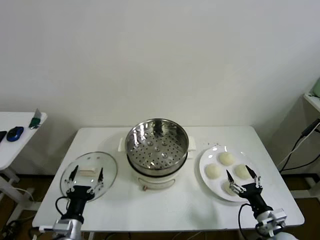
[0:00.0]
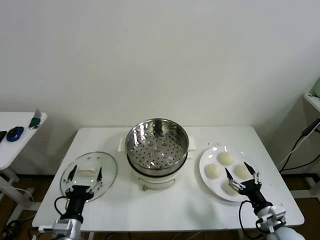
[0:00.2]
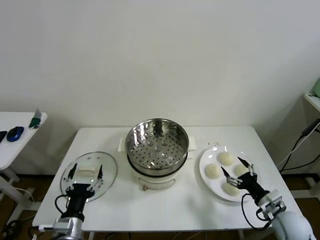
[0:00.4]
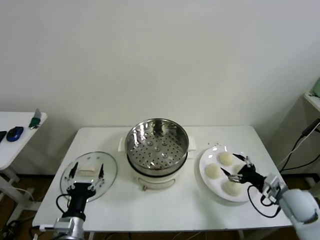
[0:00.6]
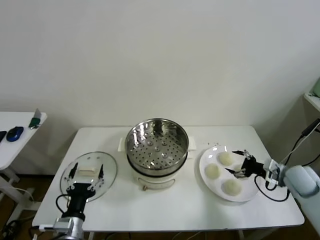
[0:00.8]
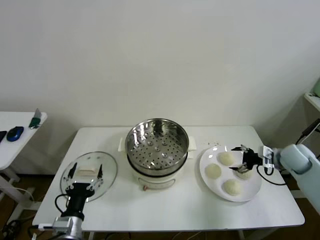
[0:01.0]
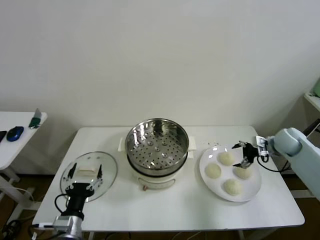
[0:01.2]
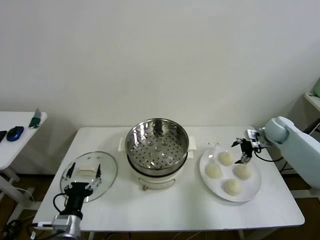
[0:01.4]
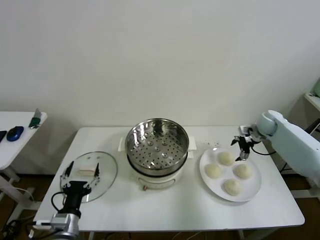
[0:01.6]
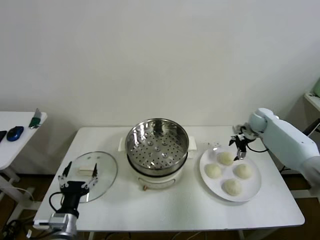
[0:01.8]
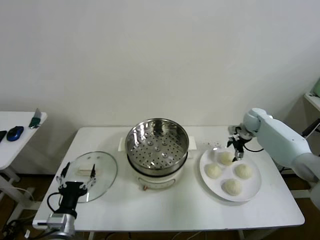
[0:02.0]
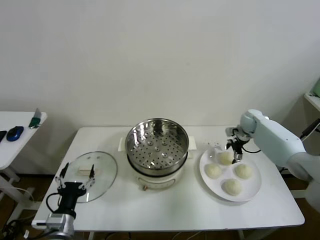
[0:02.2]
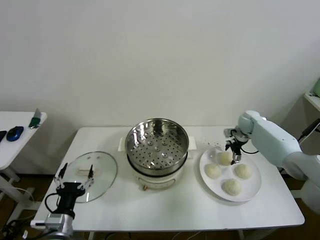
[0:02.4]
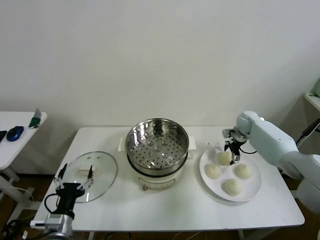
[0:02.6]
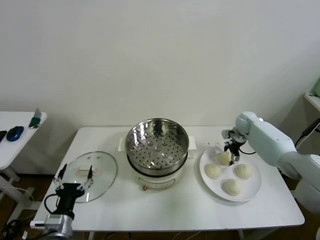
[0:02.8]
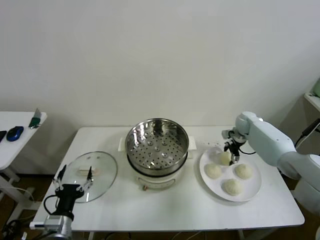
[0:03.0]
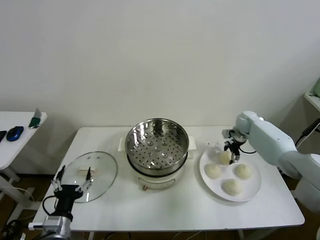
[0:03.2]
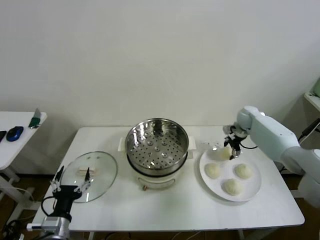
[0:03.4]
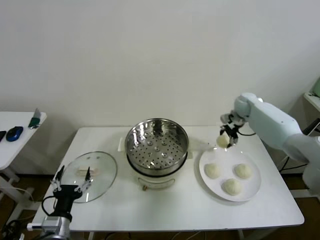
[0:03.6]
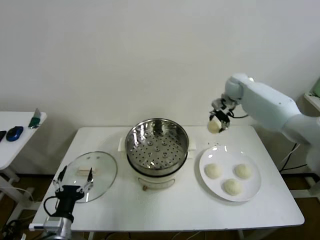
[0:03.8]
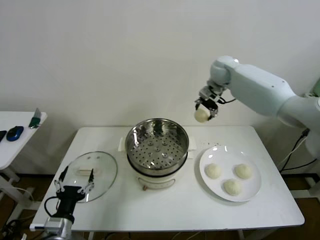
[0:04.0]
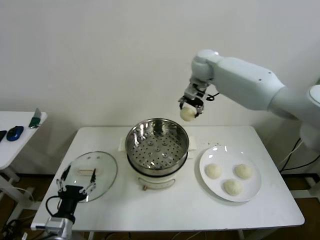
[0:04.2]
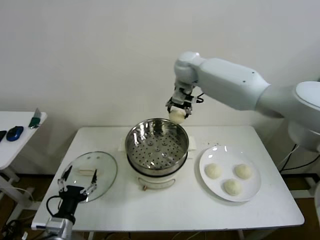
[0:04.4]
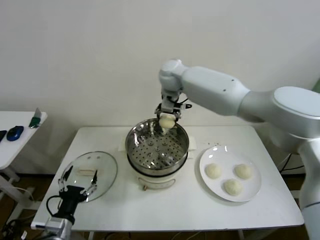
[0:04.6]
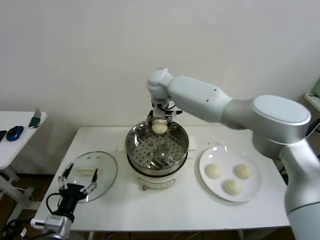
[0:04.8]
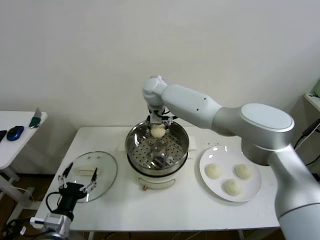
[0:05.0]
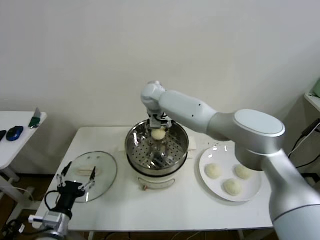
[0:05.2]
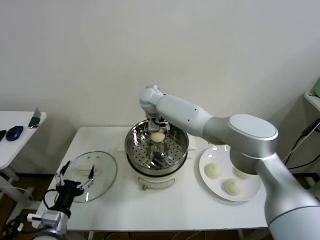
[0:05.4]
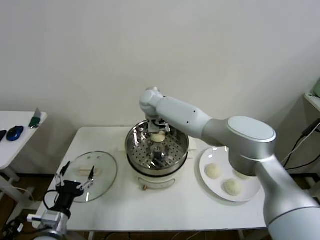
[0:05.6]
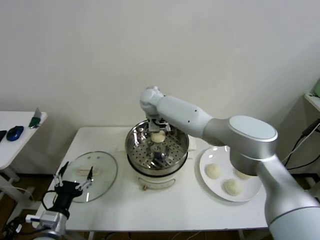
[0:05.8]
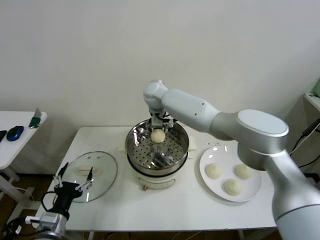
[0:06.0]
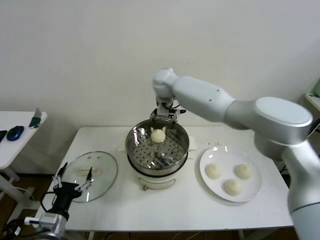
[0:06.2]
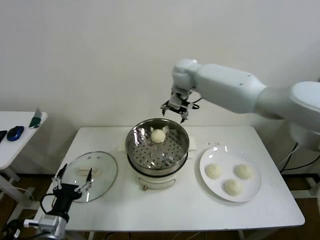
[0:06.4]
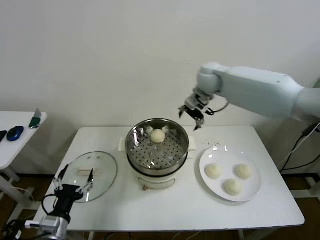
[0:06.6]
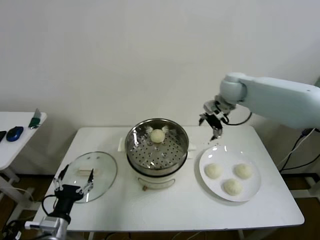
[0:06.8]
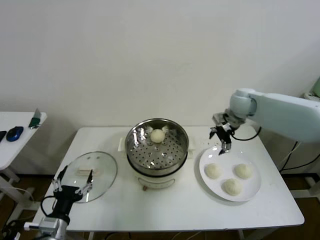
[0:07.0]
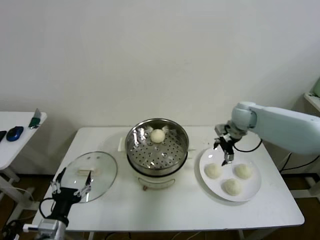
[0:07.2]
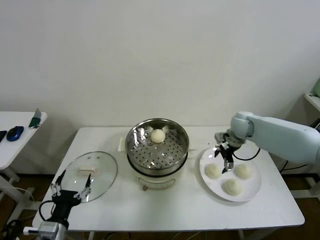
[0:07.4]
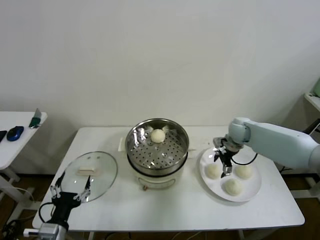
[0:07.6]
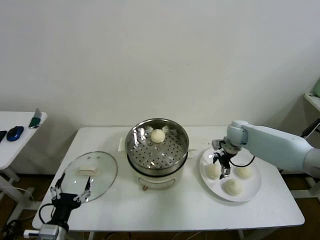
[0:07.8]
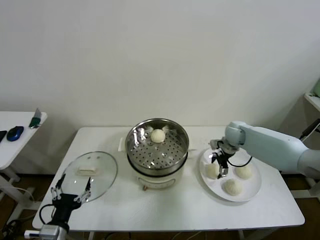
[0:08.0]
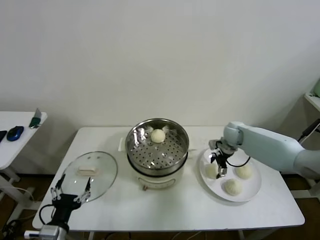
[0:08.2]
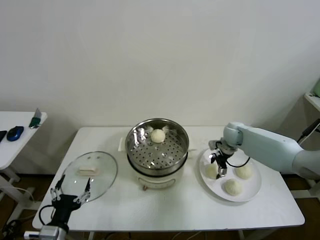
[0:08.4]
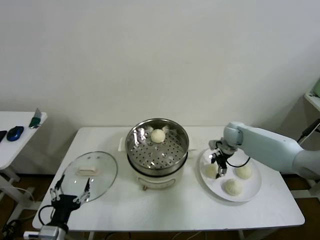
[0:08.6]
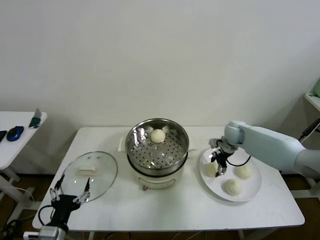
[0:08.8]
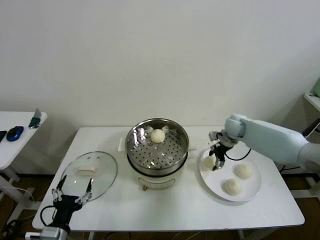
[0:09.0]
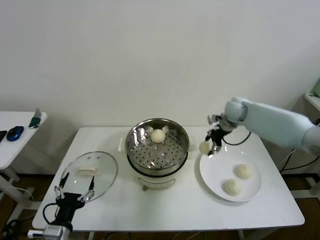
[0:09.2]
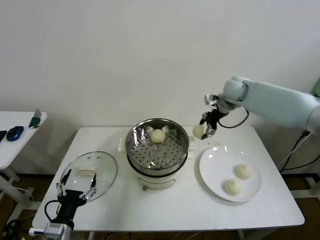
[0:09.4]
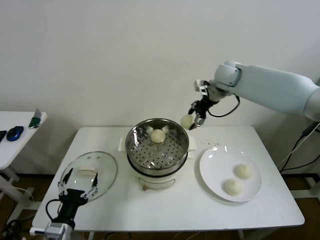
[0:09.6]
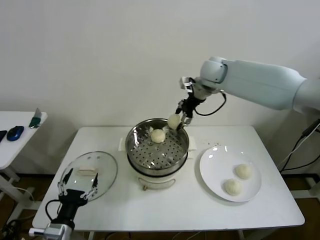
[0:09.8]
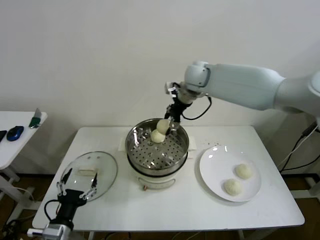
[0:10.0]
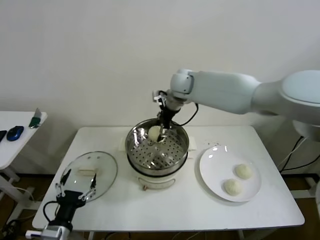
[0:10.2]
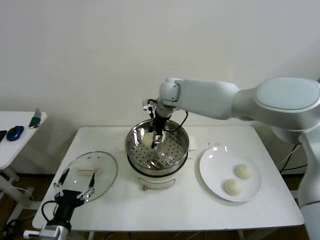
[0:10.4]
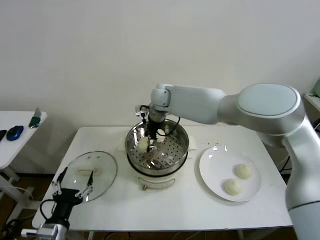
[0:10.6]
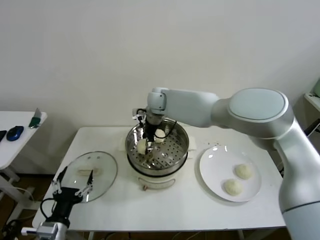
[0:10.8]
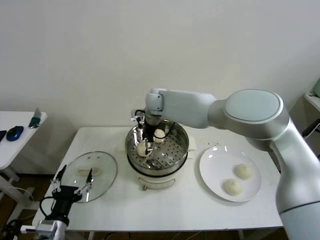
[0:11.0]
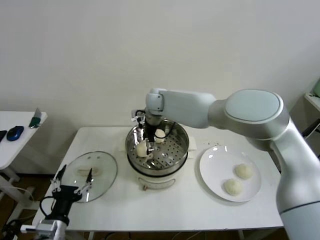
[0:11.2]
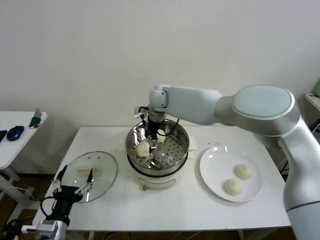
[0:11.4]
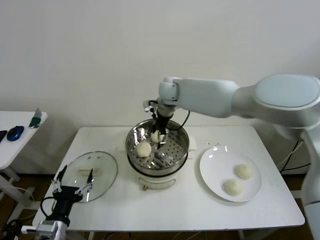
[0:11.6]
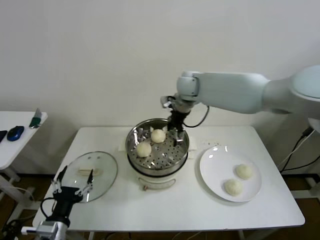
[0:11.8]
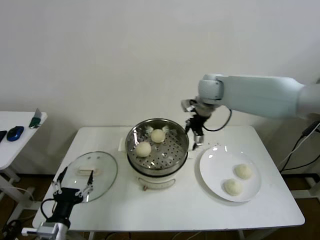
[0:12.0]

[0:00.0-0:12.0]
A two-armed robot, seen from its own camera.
Step, 0:00.0 to 0:03.0: Grasp the baozi in the plate with right gripper.
Step, 0:03.2 to 0:05.6: Place the baozi on the steamer with right gripper.
Step, 0:05.8 to 0:08.6: Grasp the baozi in the plate with right gripper.
Step, 0:08.8 to 0:10.8: Place the baozi on the steamer with right gripper.
0:01.6 to 0:03.0: The right gripper travels to the left by about 5 cm, and closes up.
0:03.0 to 0:04.4: The right gripper heads to the left and upward, covering approximately 40 cm.
0:04.4 to 0:06.0: The right gripper shifts approximately 15 cm to the left and downward, and opens its fingers.
0:06.0 to 0:07.6: The right gripper is displaced to the right and downward by roughly 35 cm.
0:07.6 to 0:09.0: The right gripper closes.
0:09.0 to 0:10.4: The right gripper travels to the left and upward by approximately 30 cm.
0:10.4 to 0:12.0: The right gripper moves to the right, approximately 15 cm, and opens.

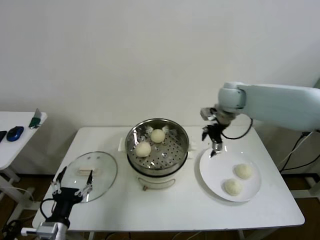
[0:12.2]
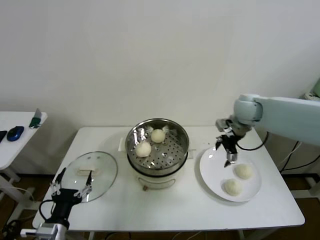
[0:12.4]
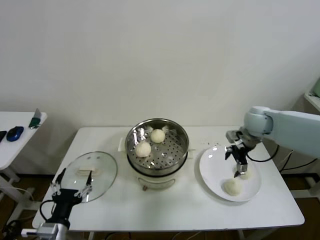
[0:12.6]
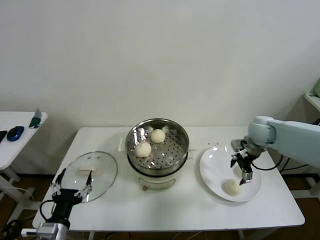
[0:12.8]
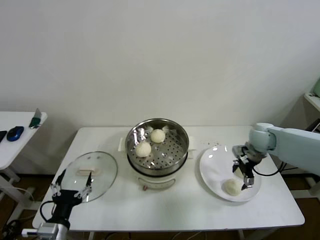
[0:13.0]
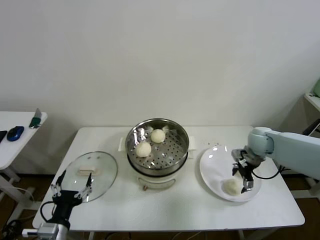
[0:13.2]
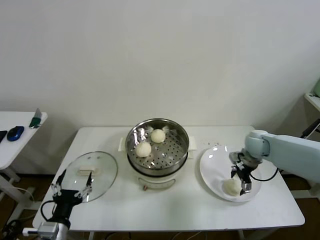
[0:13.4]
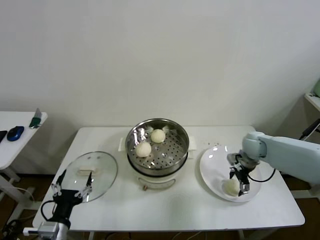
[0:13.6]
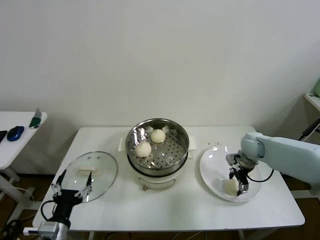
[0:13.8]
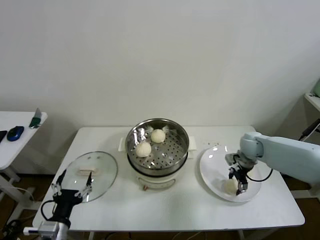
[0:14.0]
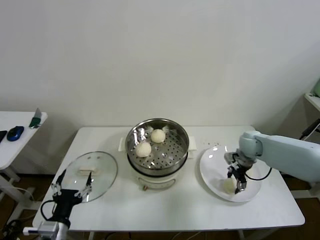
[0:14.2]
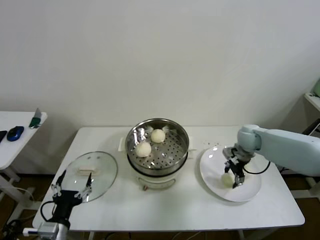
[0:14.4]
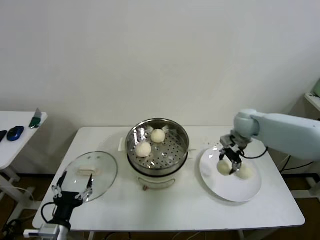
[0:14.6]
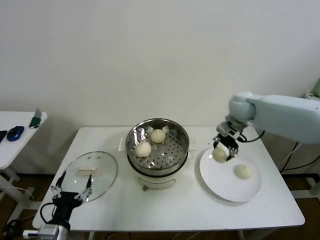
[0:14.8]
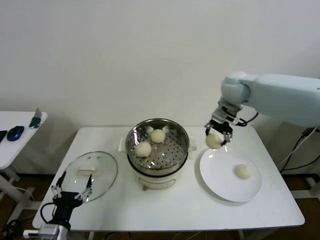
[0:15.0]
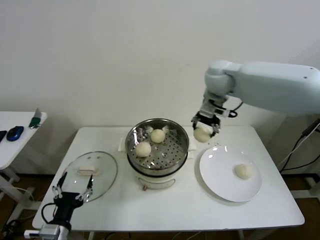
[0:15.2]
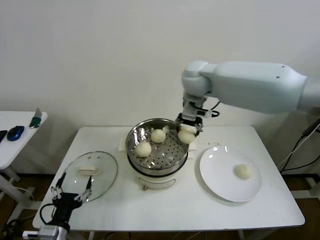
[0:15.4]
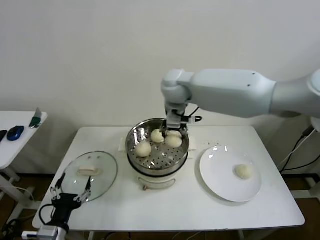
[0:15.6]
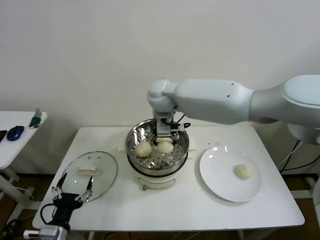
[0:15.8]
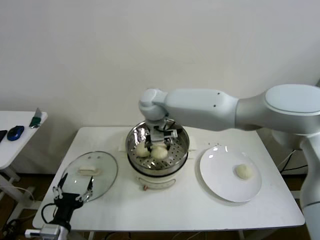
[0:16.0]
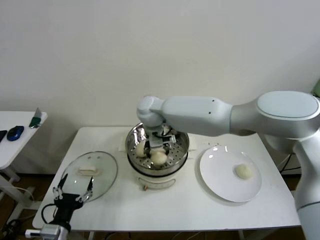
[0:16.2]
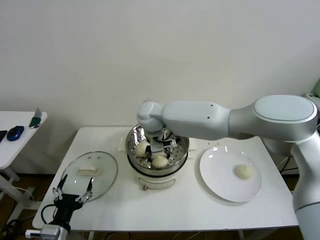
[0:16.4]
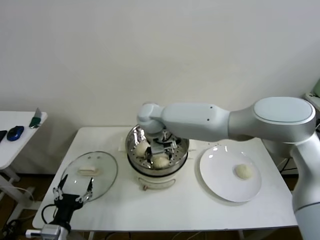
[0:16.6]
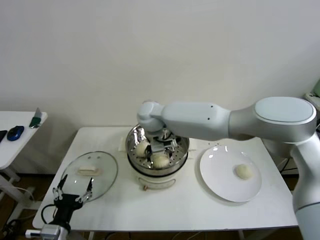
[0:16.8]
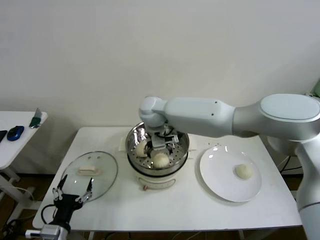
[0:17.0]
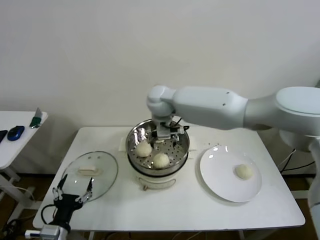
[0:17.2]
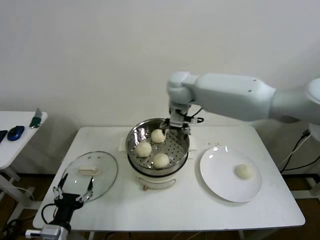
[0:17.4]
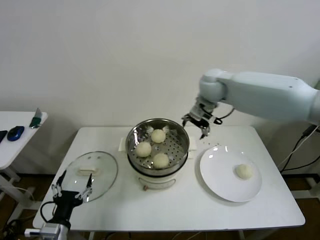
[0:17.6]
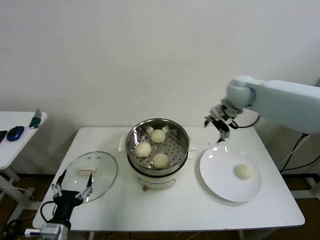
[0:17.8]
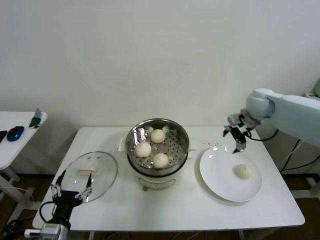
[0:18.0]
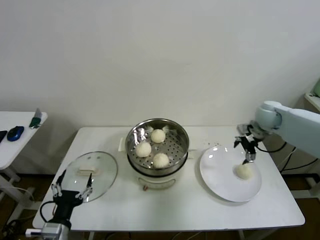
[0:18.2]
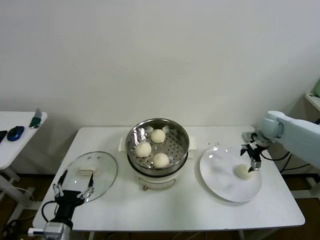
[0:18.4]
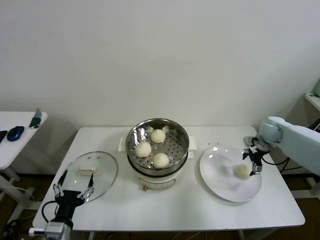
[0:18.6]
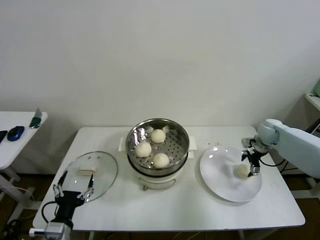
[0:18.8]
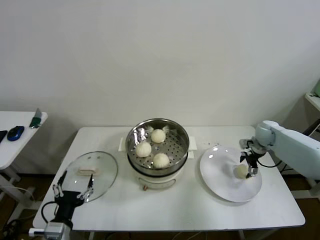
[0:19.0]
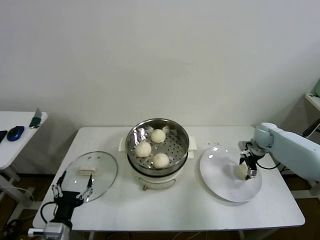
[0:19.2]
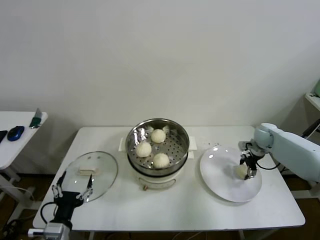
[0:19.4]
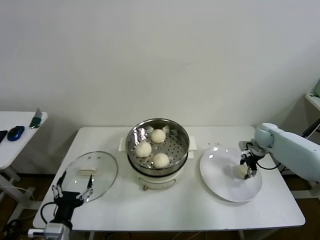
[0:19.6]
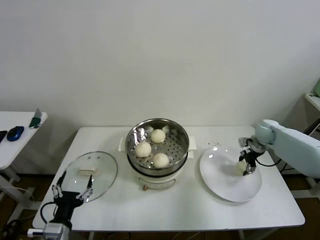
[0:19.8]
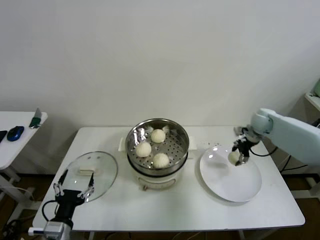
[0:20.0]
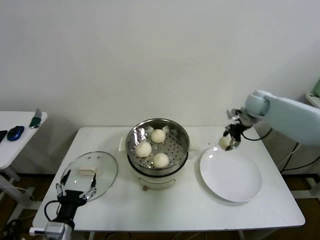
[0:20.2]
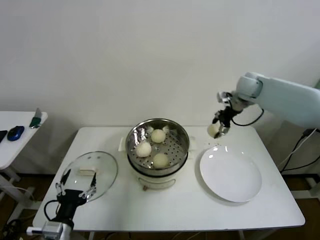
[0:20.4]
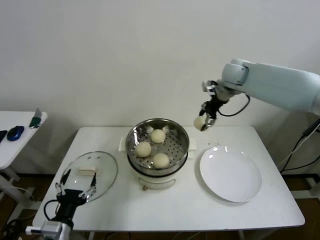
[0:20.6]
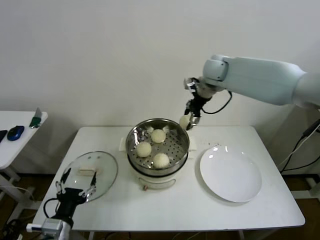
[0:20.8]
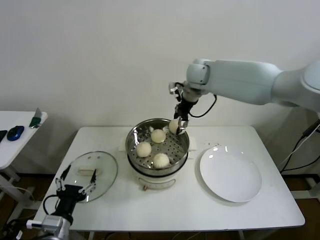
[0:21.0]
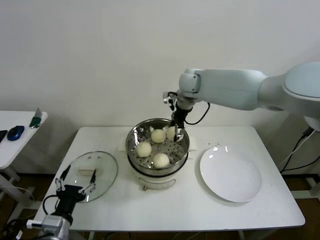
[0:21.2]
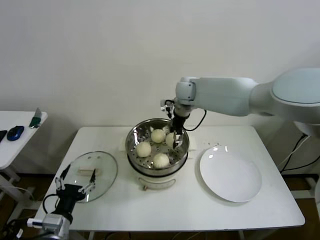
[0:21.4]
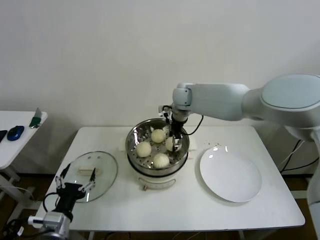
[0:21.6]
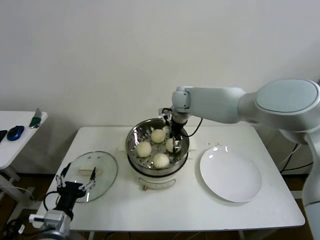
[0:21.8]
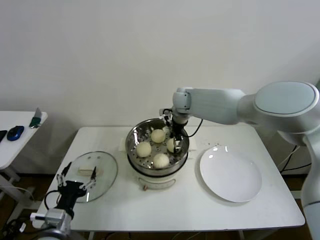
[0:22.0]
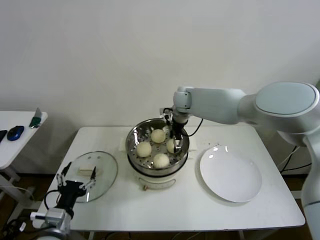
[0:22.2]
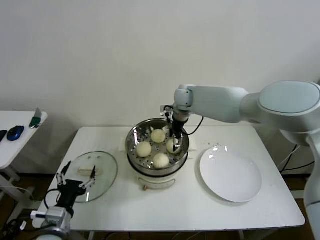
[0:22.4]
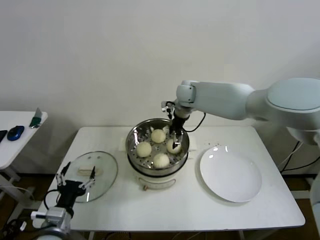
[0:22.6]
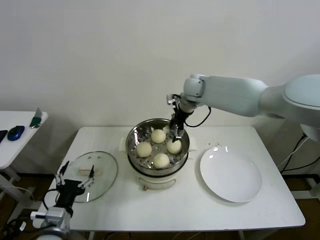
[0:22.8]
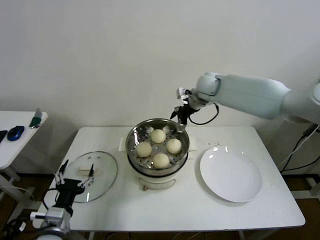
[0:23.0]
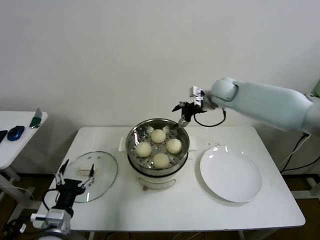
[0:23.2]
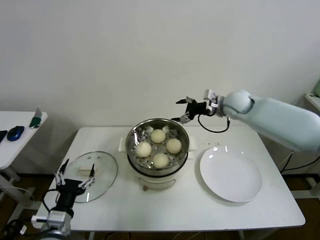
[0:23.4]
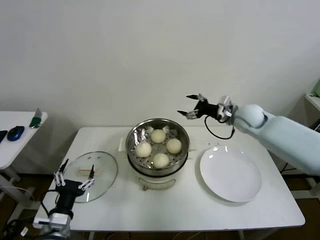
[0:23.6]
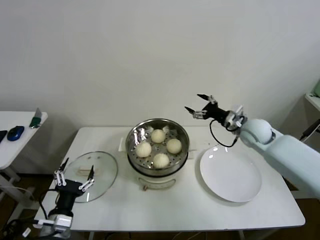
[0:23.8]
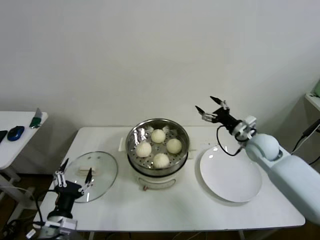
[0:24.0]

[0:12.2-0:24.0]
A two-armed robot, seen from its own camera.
Step, 0:12.2 to 0:14.0: Grasp the baozi in the plate with right gripper.
Step, 0:14.2 to 0:16.6: Place the baozi on the steamer with right gripper.
Step, 0:16.8 to 0:19.4: Grasp the baozi in the plate with right gripper.
Step, 0:19.6 to 0:22.2: Place the baozi on the steamer with right gripper.
0:12.2 to 0:13.6: The right gripper is displaced downward and to the right by approximately 20 cm.
0:13.6 to 0:15.2: The right gripper is displaced upward and to the left by roughly 30 cm, and closes up.
0:15.2 to 0:16.6: The right gripper moves to the left and downward, approximately 25 cm, and opens up.
0:16.6 to 0:18.2: The right gripper is displaced to the right by about 40 cm.
0:18.2 to 0:19.6: The right gripper moves downward and to the right, about 15 cm, and closes up.
0:19.6 to 0:21.0: The right gripper is displaced to the left and upward by approximately 40 cm.
0:21.0 to 0:22.6: The right gripper shifts some 10 cm downward, and opens up.
0:22.6 to 0:24.0: The right gripper moves to the right, backward and downward, some 30 cm.
